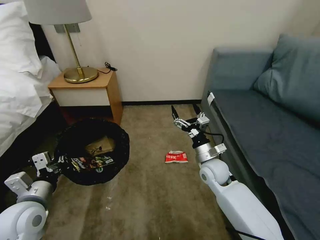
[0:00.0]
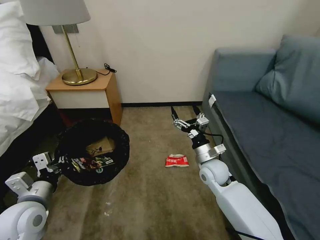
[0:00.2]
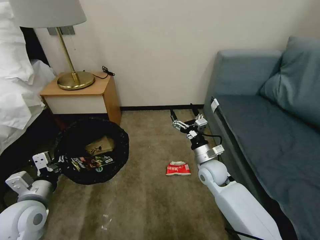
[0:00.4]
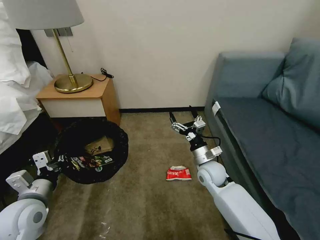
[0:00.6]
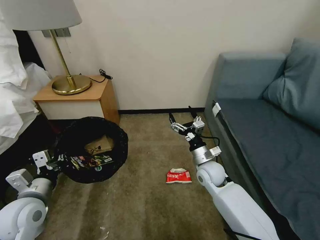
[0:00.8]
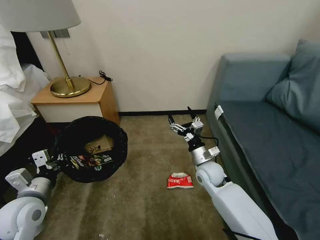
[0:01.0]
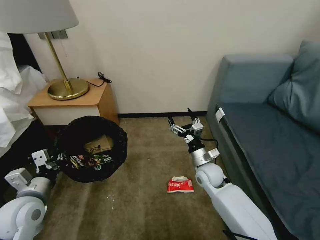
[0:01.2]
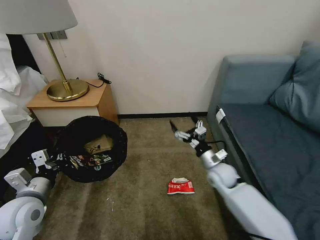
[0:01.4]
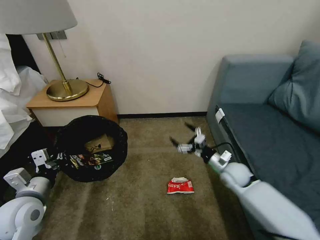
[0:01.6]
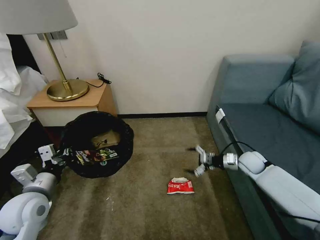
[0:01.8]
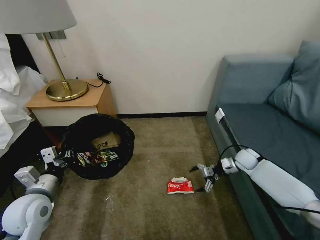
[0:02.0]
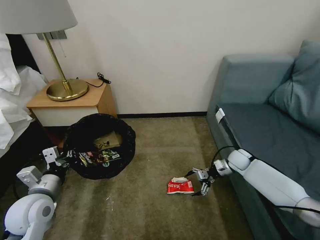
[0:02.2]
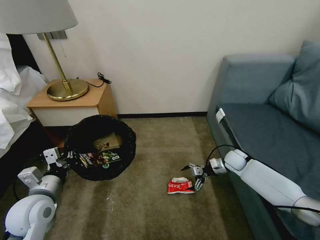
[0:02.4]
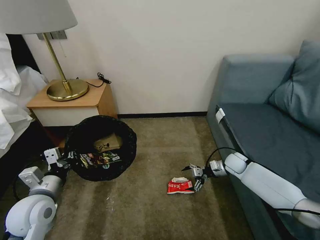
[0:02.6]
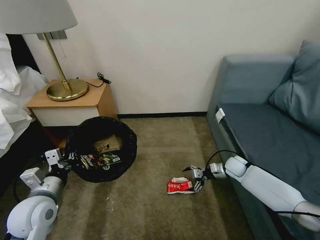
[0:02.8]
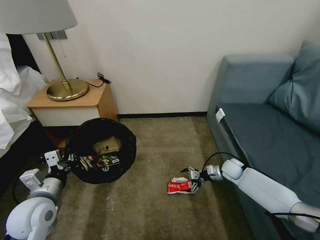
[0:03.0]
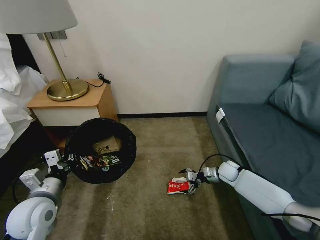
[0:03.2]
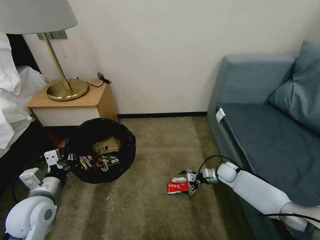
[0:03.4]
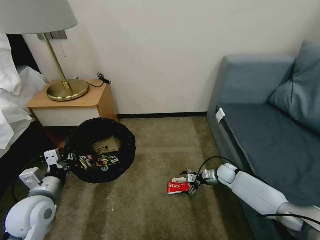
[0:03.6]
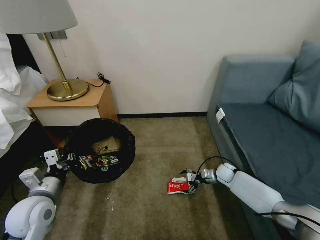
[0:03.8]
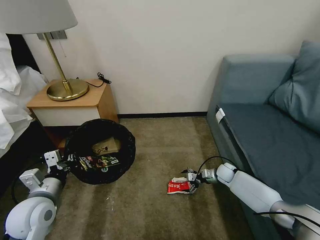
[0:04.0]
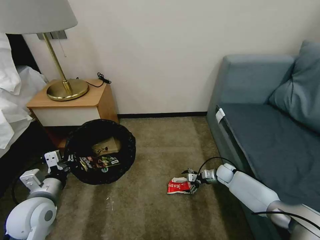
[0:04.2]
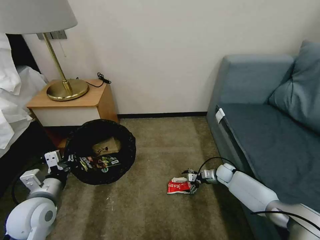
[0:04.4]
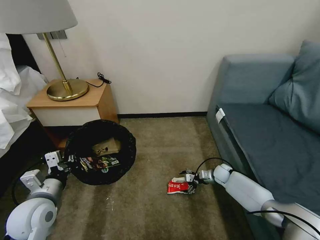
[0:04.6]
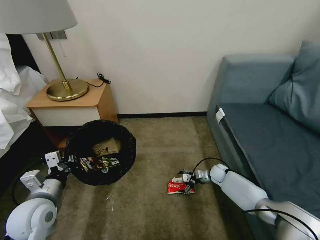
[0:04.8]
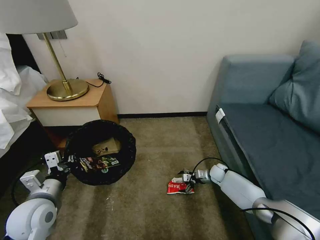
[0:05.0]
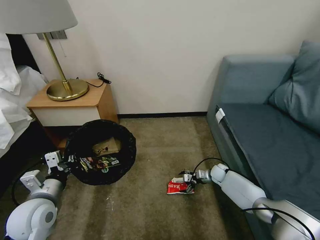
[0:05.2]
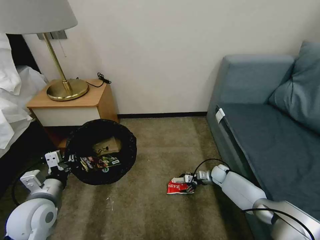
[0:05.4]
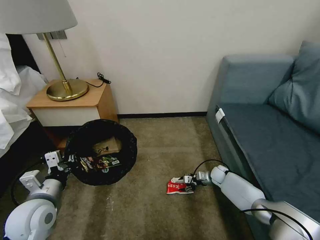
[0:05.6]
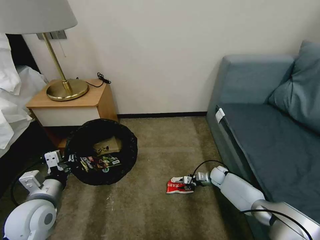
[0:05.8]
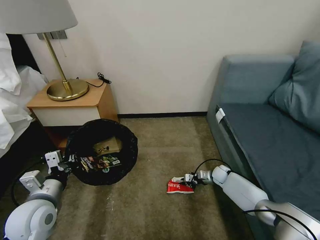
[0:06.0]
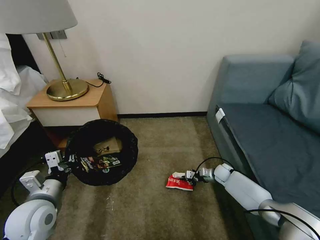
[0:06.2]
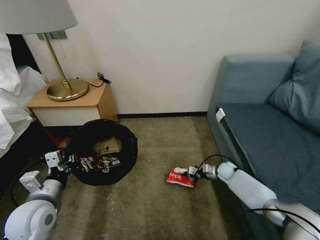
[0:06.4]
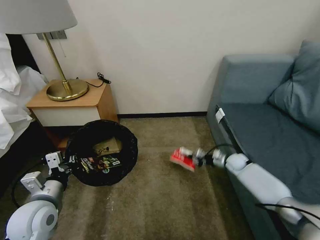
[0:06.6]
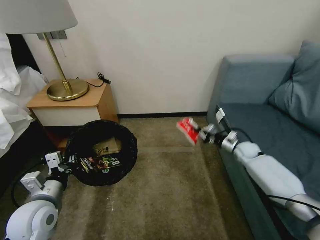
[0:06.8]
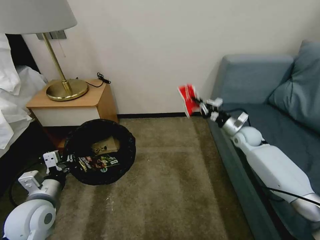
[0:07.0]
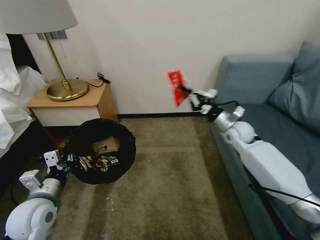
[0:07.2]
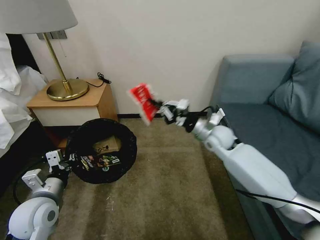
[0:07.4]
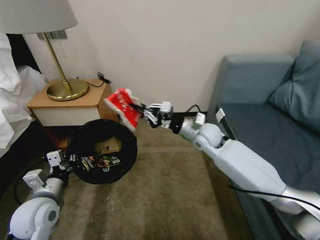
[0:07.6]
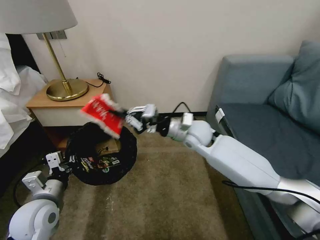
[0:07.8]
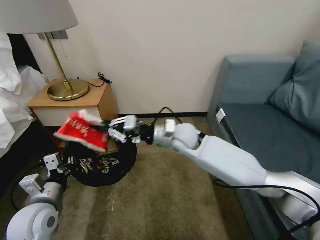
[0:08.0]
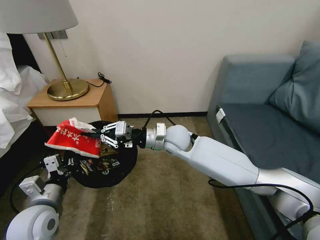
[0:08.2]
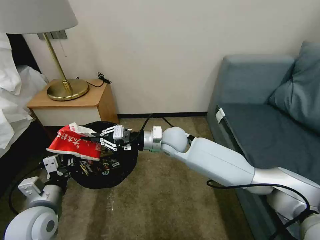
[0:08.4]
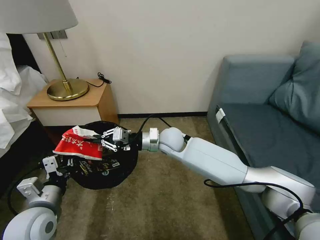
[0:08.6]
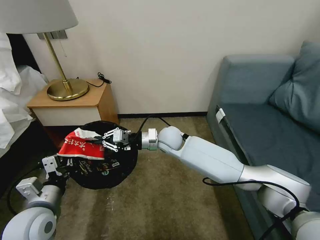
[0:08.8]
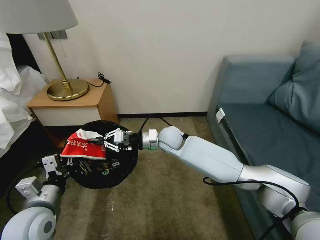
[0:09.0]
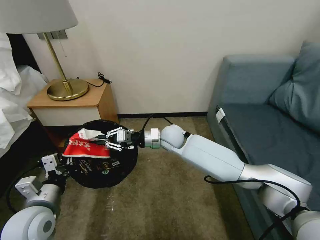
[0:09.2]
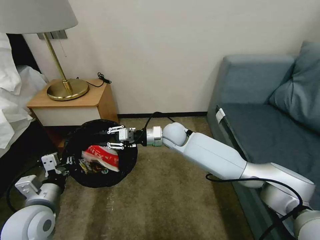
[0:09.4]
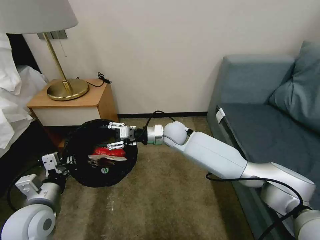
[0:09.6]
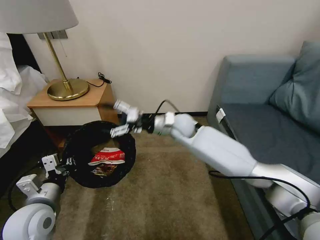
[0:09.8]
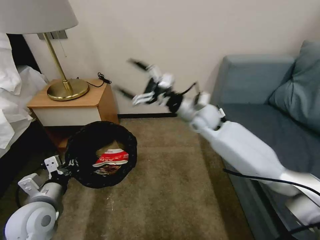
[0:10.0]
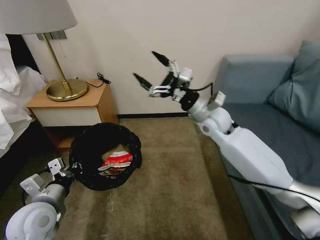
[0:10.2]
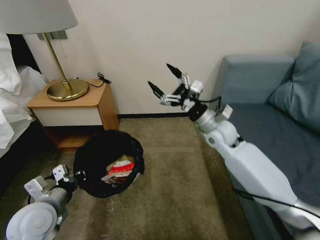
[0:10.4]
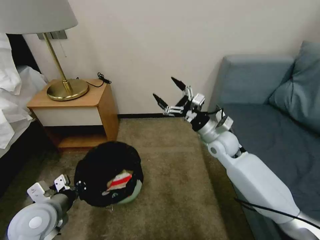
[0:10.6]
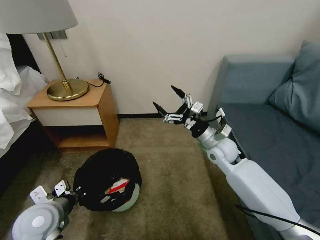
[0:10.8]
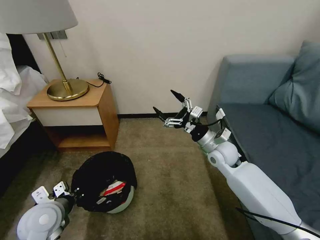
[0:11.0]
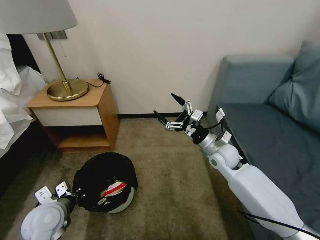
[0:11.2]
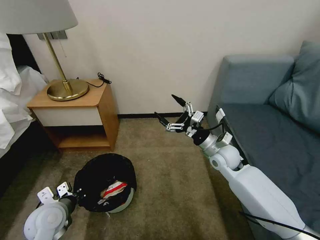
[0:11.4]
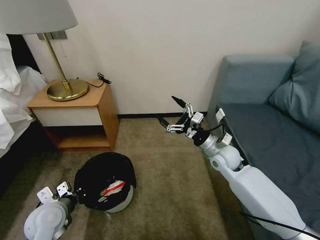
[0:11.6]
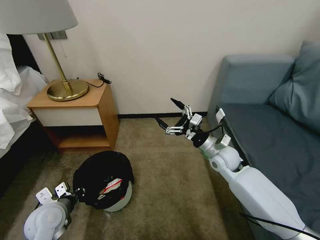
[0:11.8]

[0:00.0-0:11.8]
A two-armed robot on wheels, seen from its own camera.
Task of the whole recording: Pick up the trash bin, then pick up the garbage on the floor and place it into the trash bin.
0:01.4 to 0:03.0: The right gripper is displaced to the right and forward by approximately 20 cm.
0:03.0 to 0:04.4: The right gripper is displaced downward by some 10 cm.
0:04.4 to 0:06.0: The right gripper shifts by approximately 5 cm, and closes.
0:06.0 to 0:07.4: The right gripper is displaced upward by about 30 cm.
0:07.4 to 0:08.8: The right gripper shifts about 20 cm to the left.
0:08.8 to 0:10.4: The right gripper moves to the right, about 15 cm, and opens up.
0:10.4 to 0:11.8: The grippers both shift downward by some 10 cm.

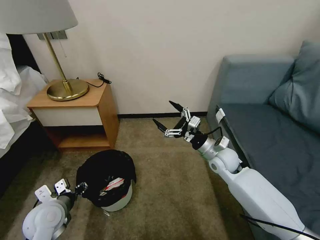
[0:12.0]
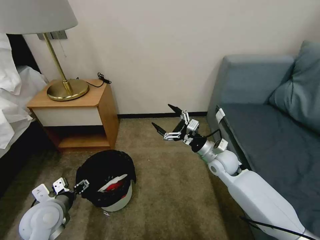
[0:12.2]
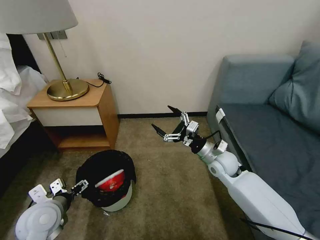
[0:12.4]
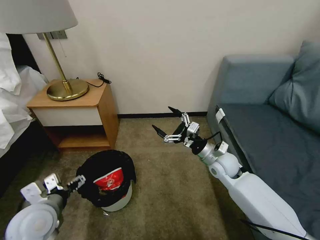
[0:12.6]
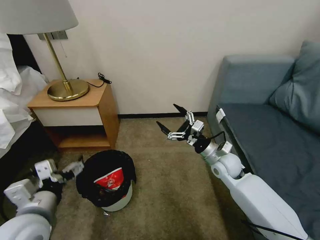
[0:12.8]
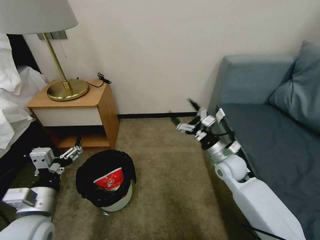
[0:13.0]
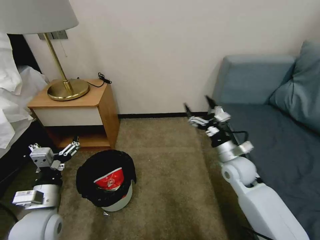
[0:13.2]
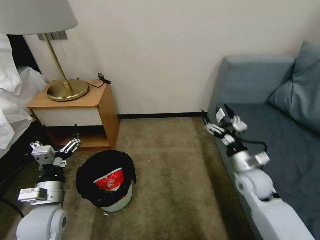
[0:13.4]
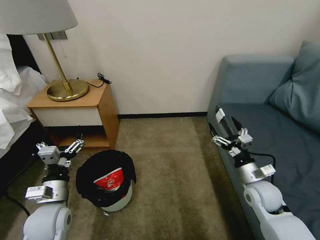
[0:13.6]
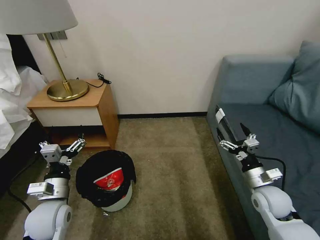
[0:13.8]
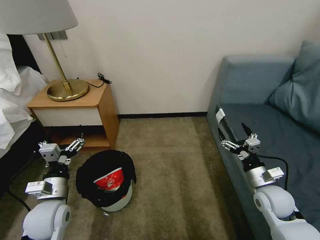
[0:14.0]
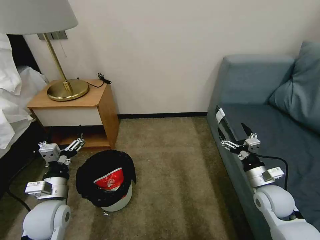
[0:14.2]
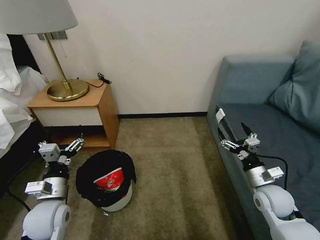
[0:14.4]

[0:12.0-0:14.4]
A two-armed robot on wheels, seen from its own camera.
Task of the whole recording: Pick up the trash bin, then pick up the garbage on the floor and place it into the trash bin.
0:12.0 to 0:13.2: The right gripper changes place by some 5 cm; the left gripper opens up.
0:13.2 to 0:14.4: The right gripper is displaced to the right and backward by roughly 15 cm.
